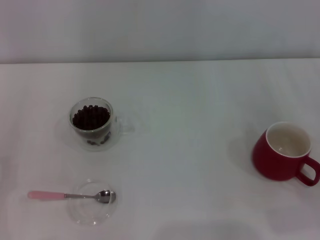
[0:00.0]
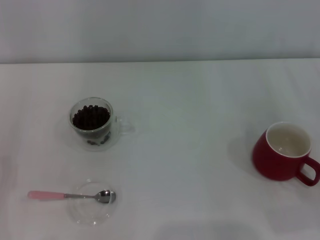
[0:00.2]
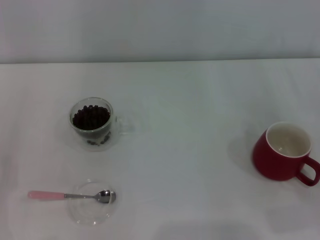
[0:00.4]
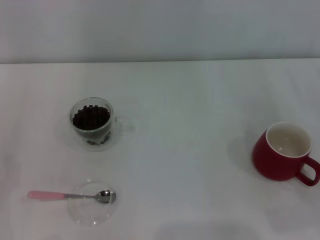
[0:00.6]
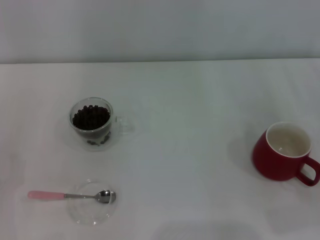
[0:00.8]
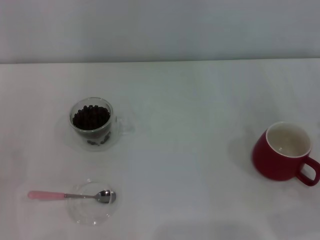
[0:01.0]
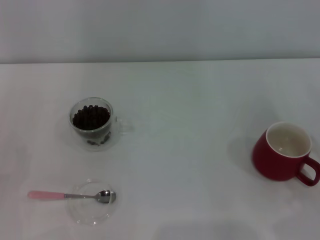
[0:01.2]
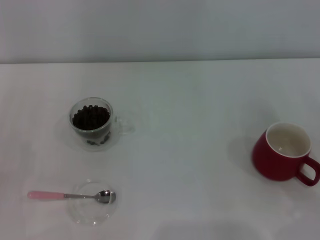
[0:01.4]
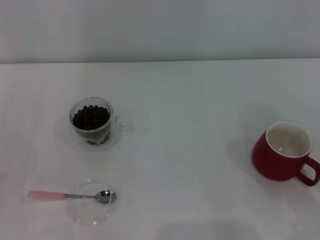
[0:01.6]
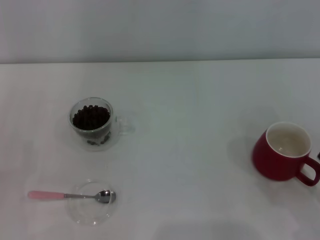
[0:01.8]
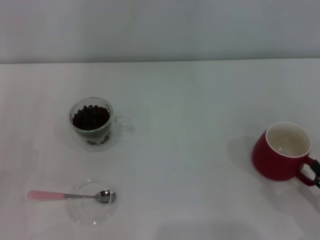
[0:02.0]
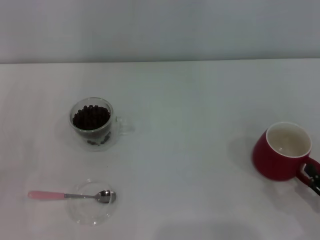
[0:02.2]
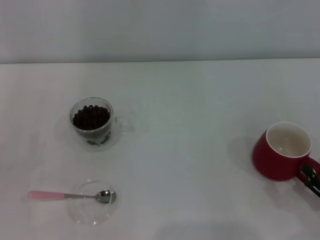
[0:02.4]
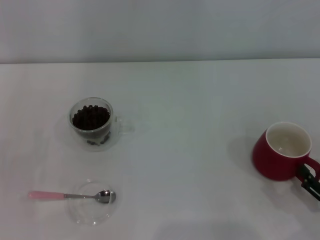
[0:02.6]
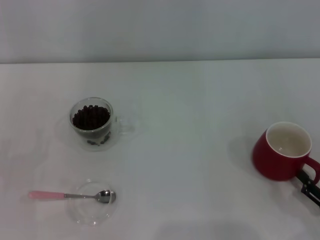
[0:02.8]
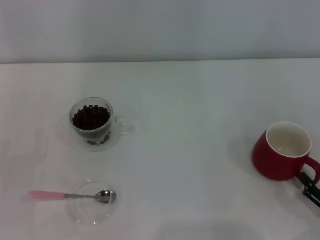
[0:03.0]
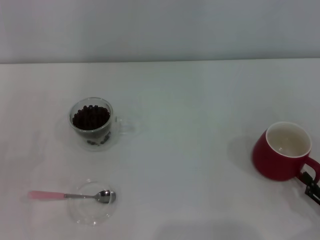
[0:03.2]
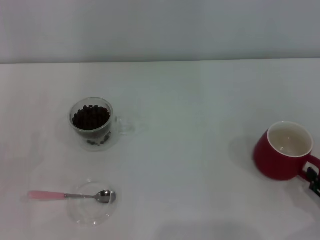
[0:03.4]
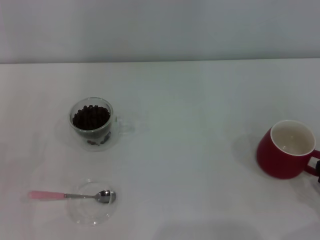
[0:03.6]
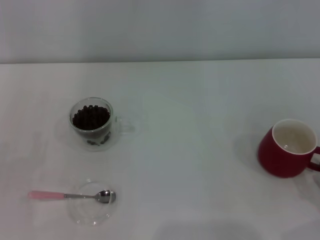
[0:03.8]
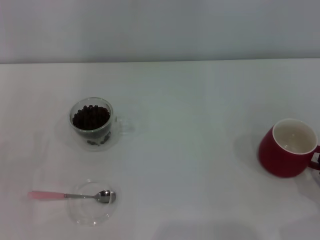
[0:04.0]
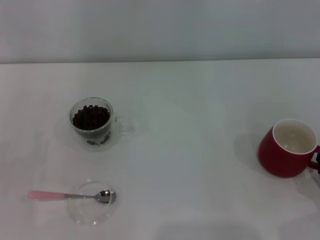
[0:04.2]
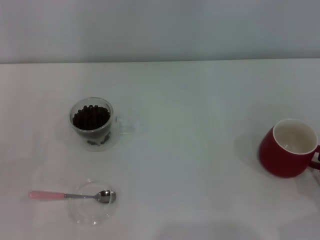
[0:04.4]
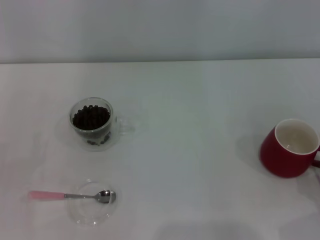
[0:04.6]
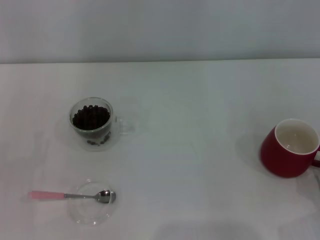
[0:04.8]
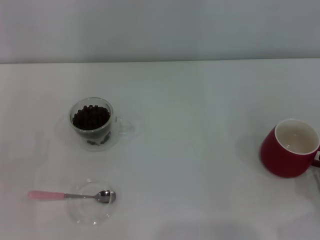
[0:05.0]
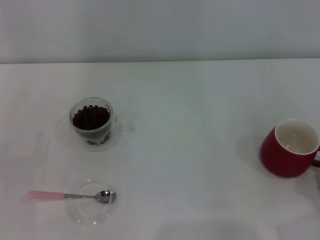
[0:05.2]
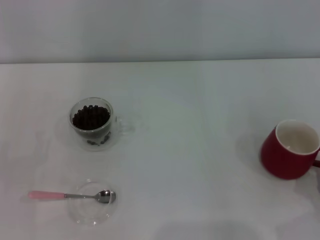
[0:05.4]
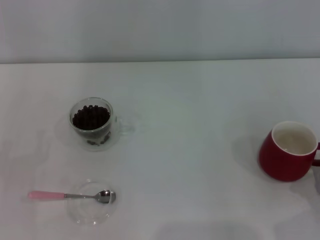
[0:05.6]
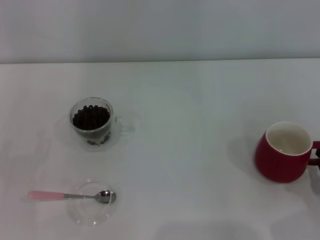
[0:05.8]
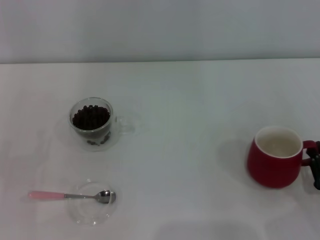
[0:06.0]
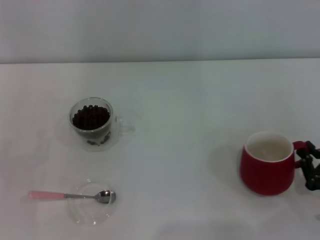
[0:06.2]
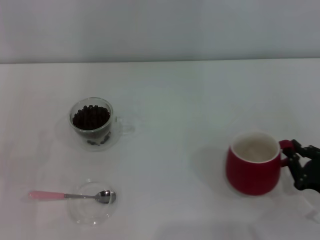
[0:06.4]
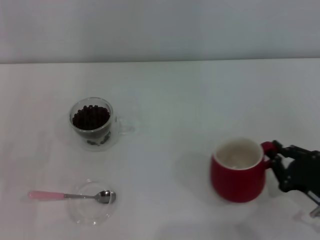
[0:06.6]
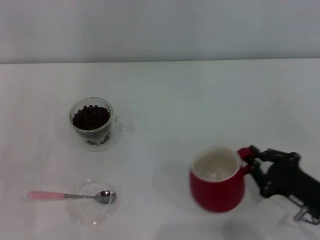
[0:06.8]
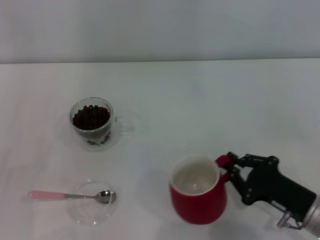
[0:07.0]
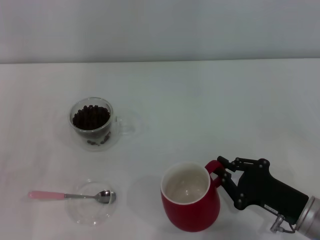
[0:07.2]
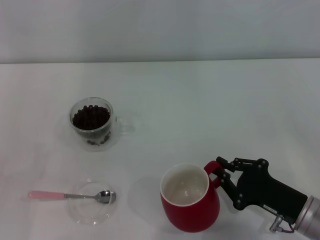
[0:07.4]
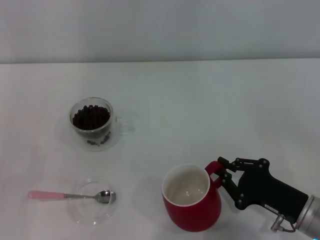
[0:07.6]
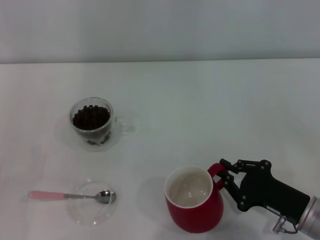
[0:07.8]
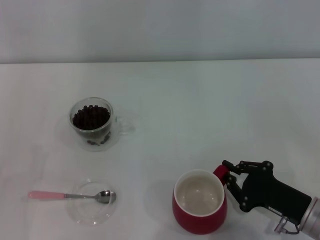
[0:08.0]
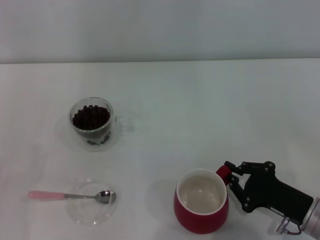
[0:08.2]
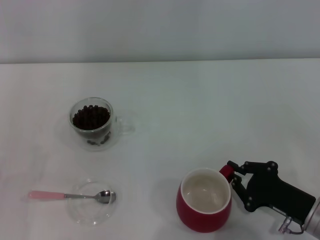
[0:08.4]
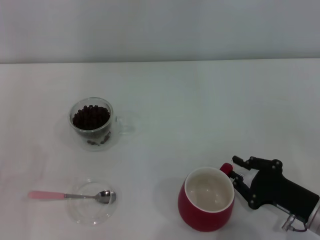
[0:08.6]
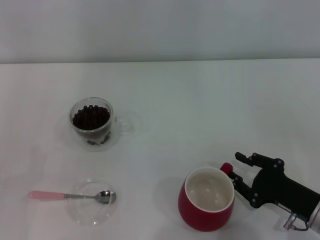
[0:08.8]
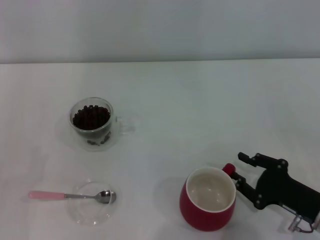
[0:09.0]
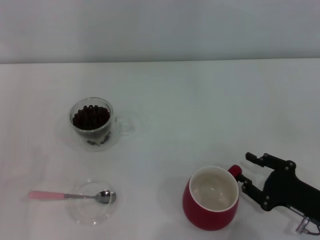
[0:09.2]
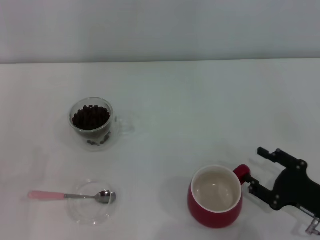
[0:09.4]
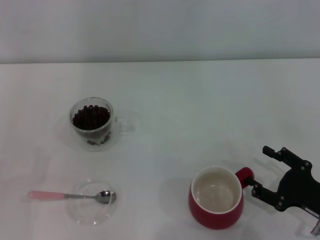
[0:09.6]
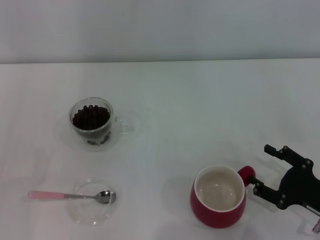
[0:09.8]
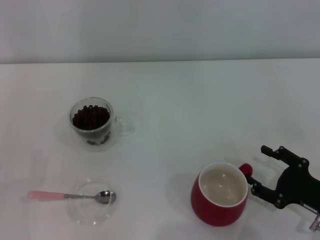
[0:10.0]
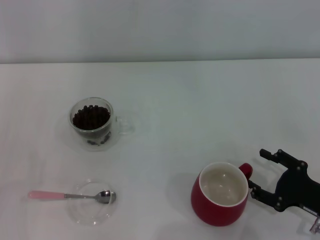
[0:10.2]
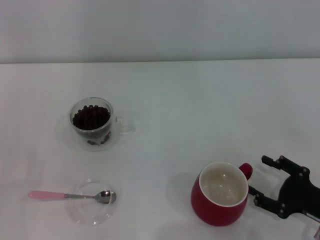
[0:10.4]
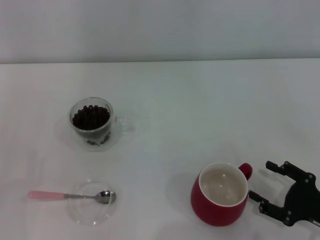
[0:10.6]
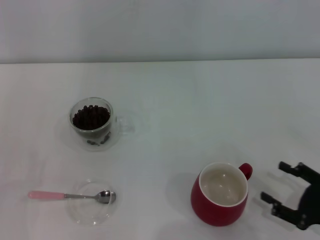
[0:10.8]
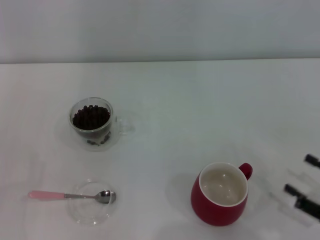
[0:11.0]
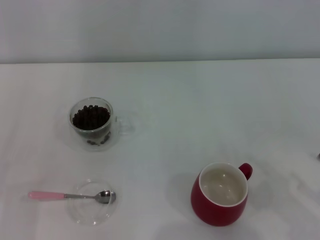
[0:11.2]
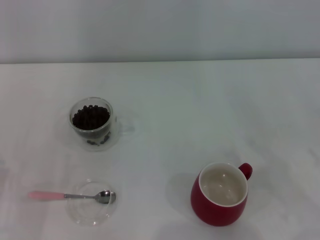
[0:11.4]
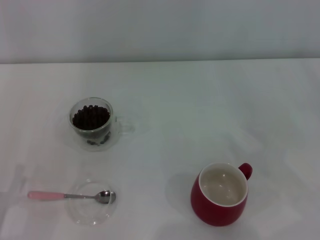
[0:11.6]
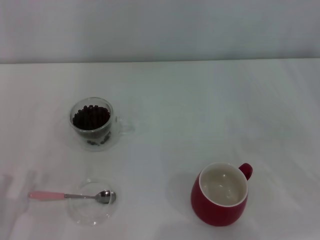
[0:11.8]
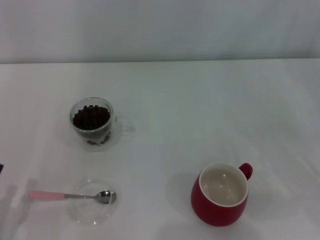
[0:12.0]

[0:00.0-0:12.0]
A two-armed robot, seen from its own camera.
Task of the whole recording: Use a pink spoon to take out the coffee beans from the glass and pour them into the red cup.
Step, 0:00.0 to 0:10.8: Move the cup to the center of view with the left gripper.
0:03.0 to 0:04.4: The grippers make only small movements.
0:04.4 to 0:06.0: The right gripper closes its fingers.
0:06.0 to 0:07.6: The right gripper travels to the left by some 10 cm.
0:07.6 to 0:09.0: The right gripper opens.
0:09.0 to 0:10.4: The right gripper opens up.
0:10.4 to 0:12.0: The right gripper moves upward and to the right, roughly 10 cm.

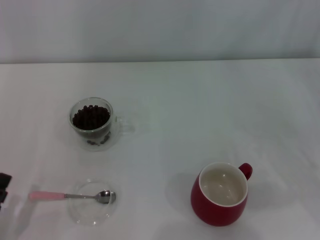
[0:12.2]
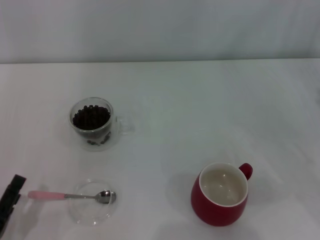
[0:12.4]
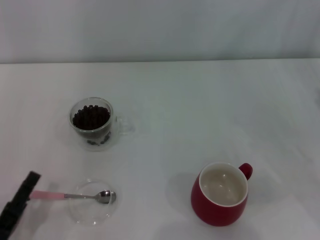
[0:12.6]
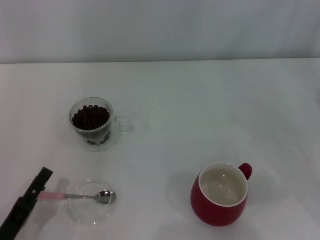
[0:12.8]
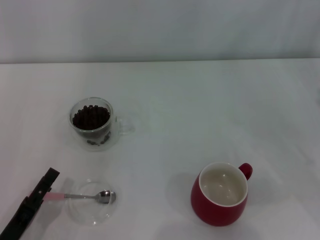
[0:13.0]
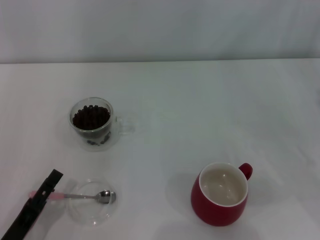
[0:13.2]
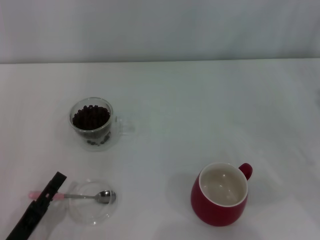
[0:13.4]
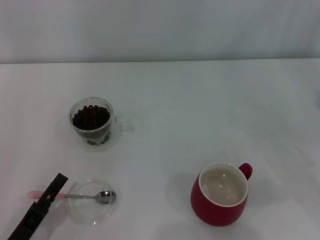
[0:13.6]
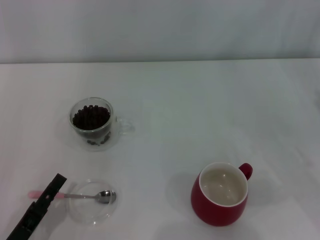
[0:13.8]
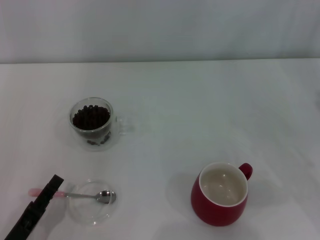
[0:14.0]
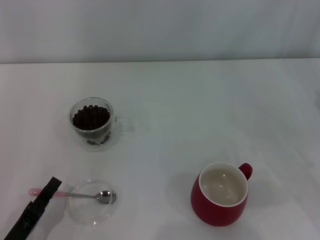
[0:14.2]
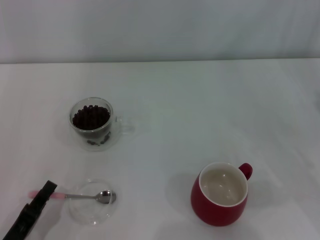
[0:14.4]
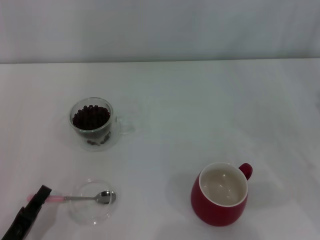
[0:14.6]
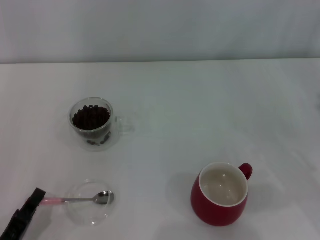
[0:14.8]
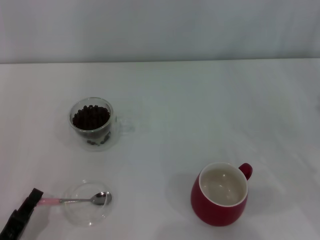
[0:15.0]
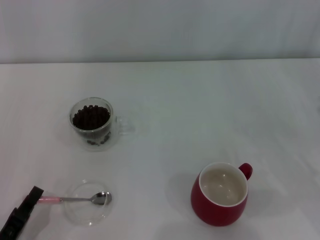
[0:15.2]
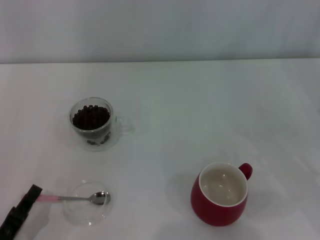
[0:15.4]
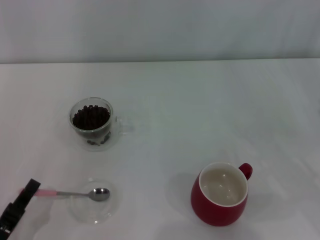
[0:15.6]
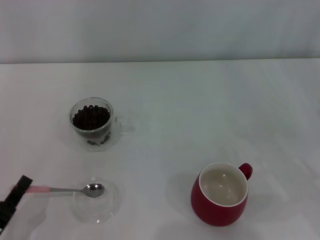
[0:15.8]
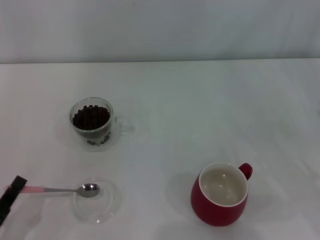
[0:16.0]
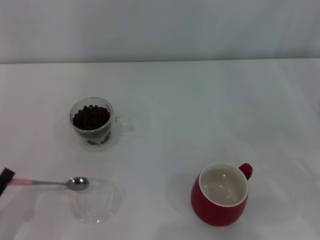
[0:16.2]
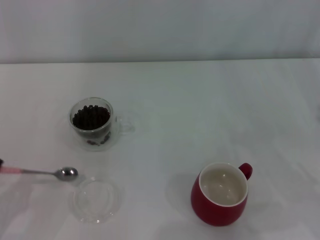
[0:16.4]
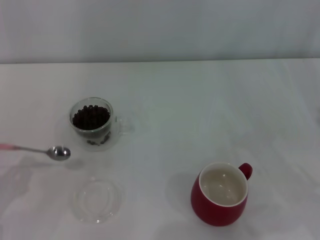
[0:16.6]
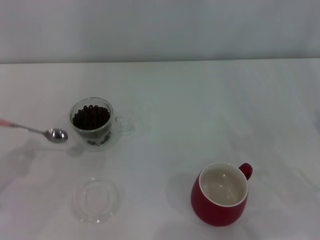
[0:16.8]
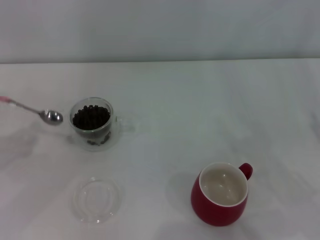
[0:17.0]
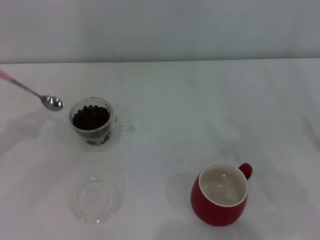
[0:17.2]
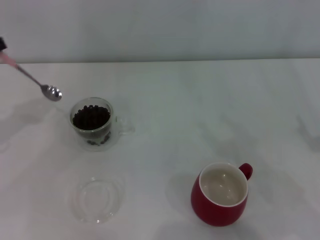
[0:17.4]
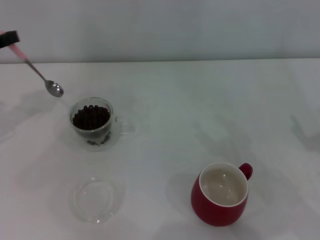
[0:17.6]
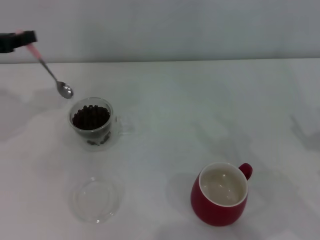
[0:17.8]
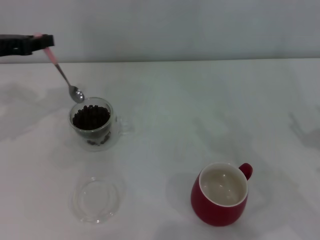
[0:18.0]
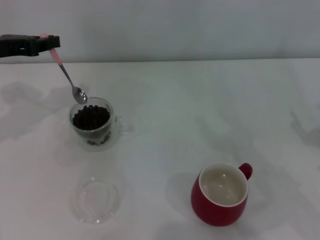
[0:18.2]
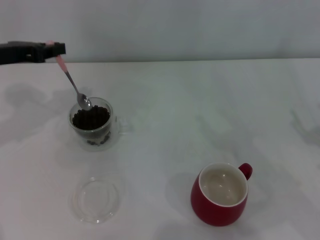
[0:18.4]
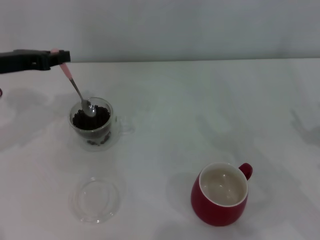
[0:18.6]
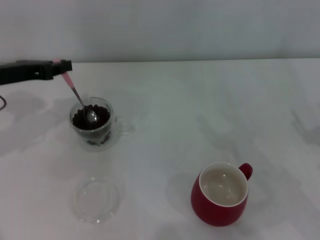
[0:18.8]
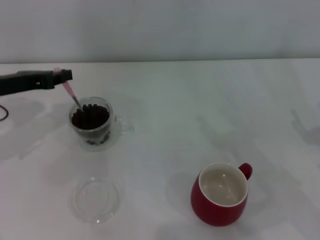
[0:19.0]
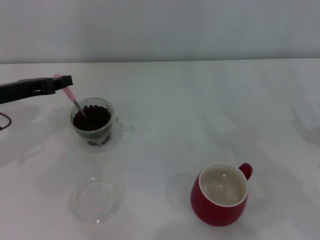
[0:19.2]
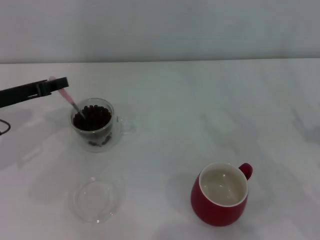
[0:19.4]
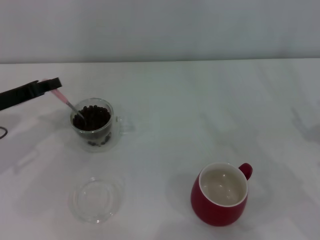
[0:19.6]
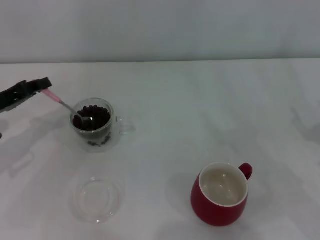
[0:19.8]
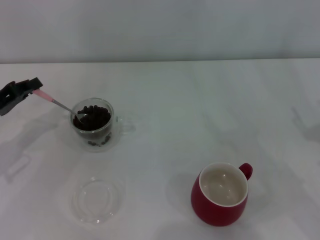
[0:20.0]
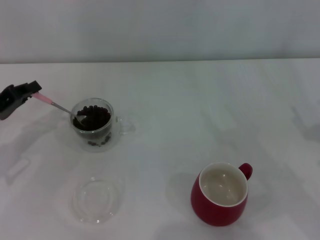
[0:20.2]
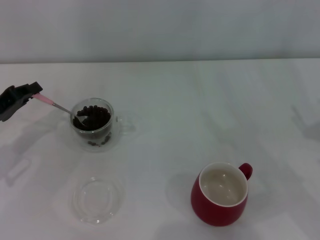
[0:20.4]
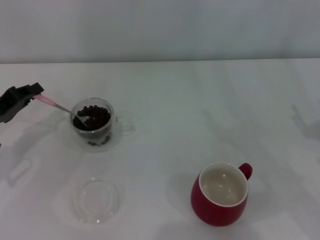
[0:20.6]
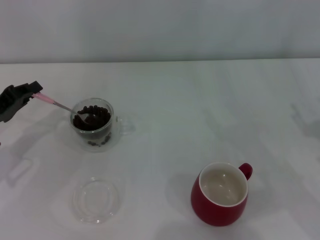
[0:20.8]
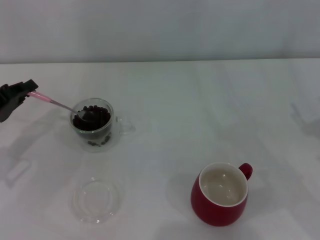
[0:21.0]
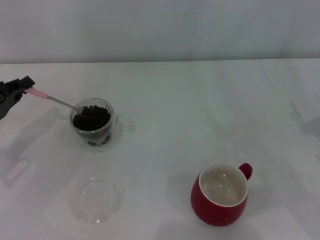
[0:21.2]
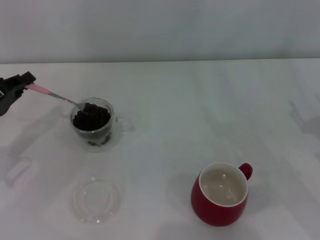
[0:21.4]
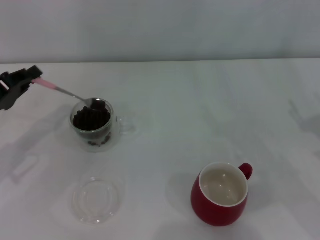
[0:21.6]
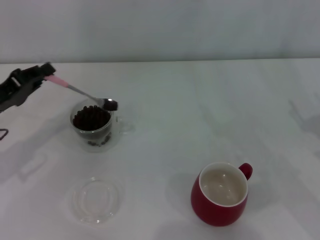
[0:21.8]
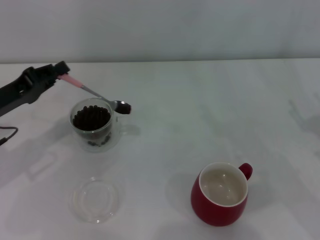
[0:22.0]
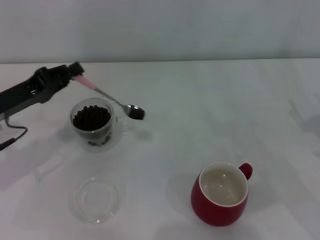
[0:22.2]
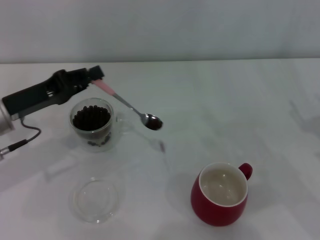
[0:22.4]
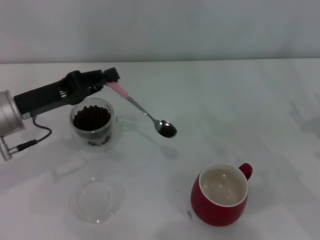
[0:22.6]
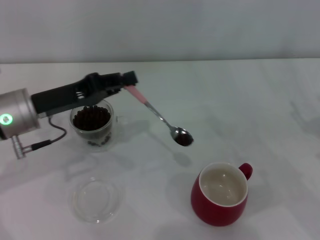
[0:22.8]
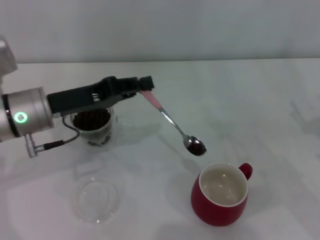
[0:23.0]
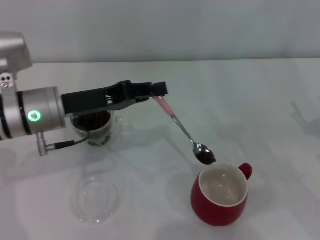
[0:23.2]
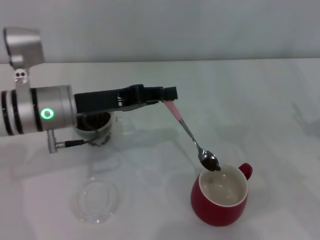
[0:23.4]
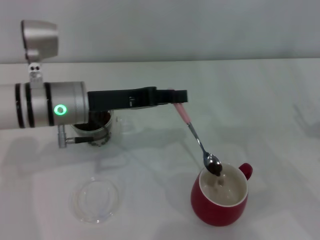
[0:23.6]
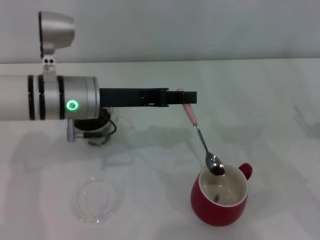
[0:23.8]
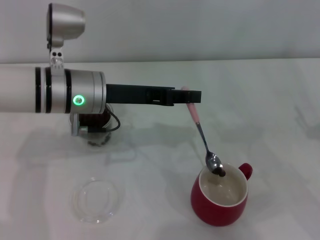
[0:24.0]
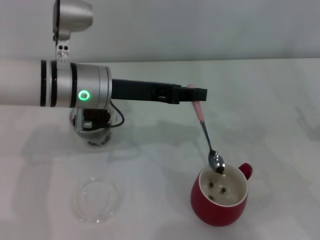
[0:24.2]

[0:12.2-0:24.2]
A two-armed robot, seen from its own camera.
Task of the whole recording: Use a pink spoon to take out the coffee beans from the glass and pour them into the red cup.
Step, 0:12.2 to 0:16.2: Pick up the spoon with the right gripper.
0:12.2 to 0:13.8: The grippers stay close to where they were, moving slightly.
0:13.8 to 0:15.2: The left gripper closes its fingers.
0:15.2 to 0:16.6: The left gripper heads to the left, upward and forward, covering approximately 10 cm.
0:16.6 to 0:18.2: The left gripper heads forward and upward, covering approximately 25 cm.
0:18.2 to 0:19.8: The left gripper goes approximately 10 cm downward and backward.
0:19.8 to 0:21.2: There are only small adjustments of the grippers.
0:21.2 to 0:22.6: The left gripper goes approximately 10 cm to the right.
0:22.6 to 0:24.2: The left gripper travels to the right by roughly 10 cm.
